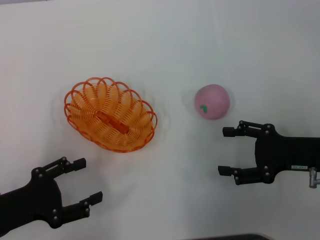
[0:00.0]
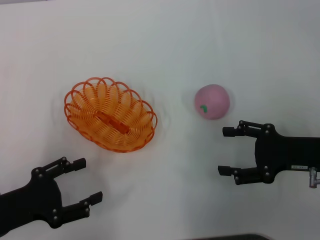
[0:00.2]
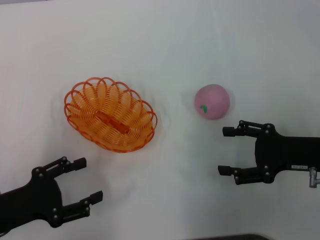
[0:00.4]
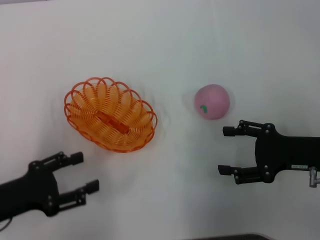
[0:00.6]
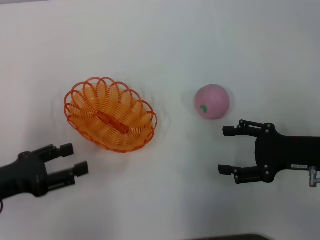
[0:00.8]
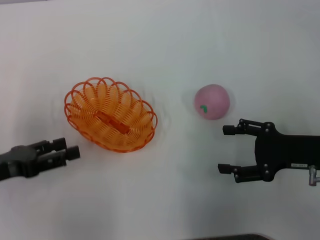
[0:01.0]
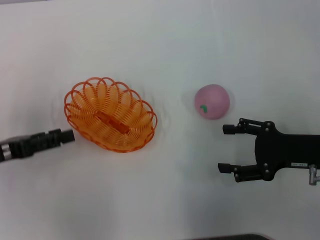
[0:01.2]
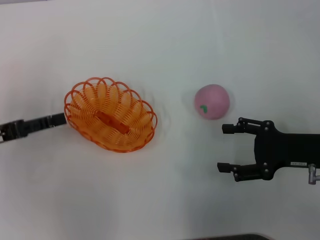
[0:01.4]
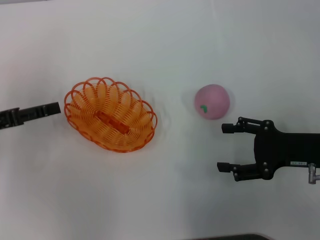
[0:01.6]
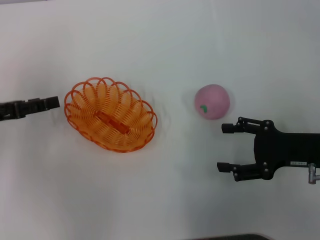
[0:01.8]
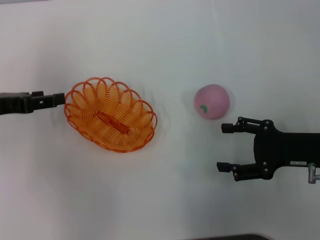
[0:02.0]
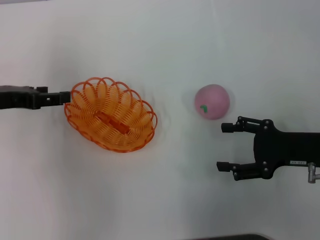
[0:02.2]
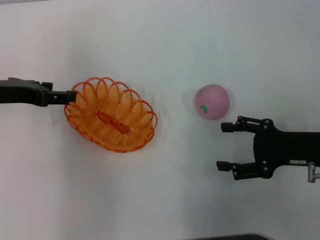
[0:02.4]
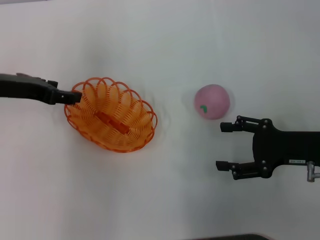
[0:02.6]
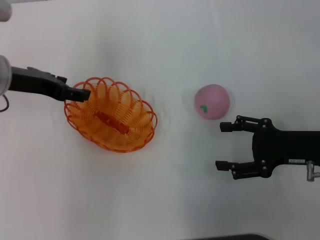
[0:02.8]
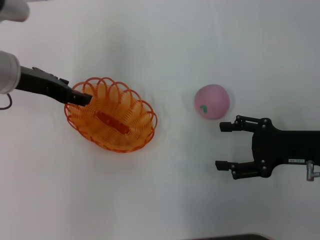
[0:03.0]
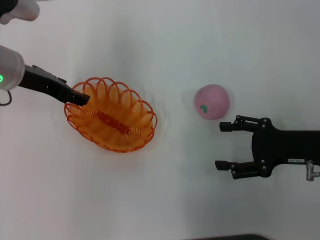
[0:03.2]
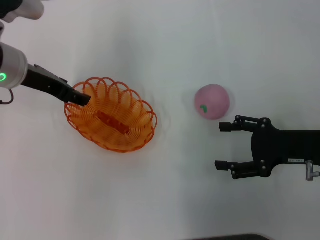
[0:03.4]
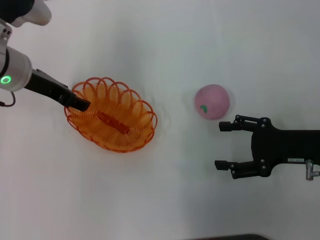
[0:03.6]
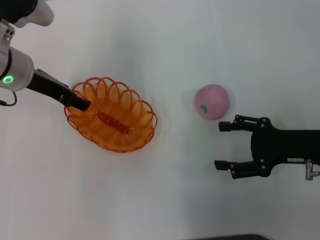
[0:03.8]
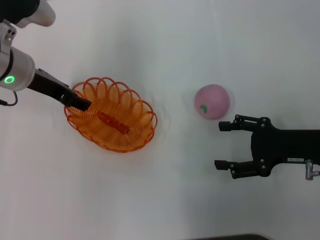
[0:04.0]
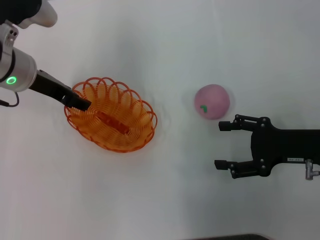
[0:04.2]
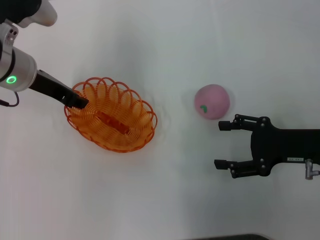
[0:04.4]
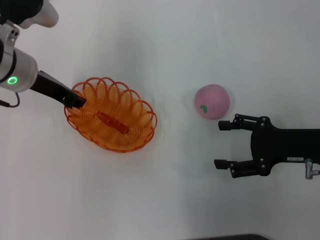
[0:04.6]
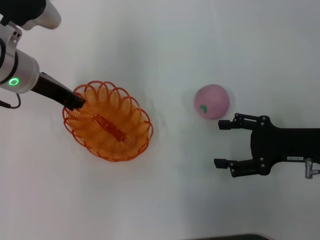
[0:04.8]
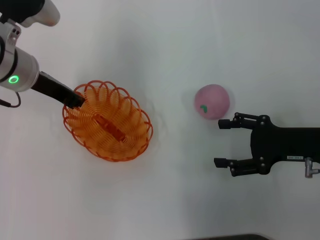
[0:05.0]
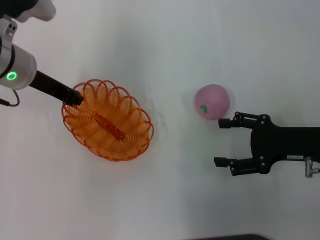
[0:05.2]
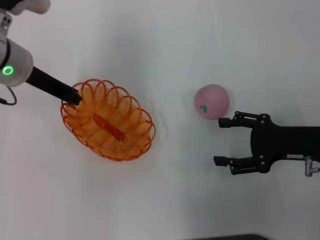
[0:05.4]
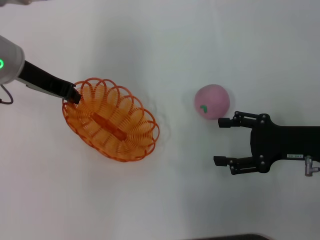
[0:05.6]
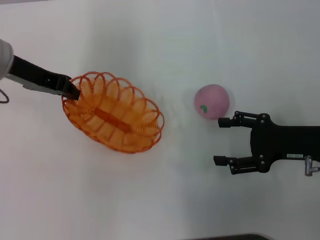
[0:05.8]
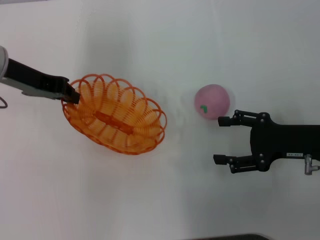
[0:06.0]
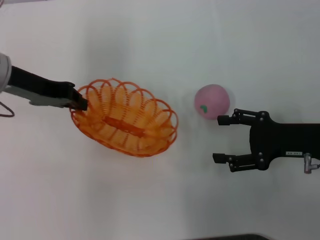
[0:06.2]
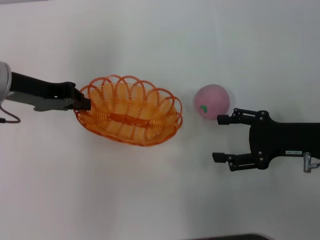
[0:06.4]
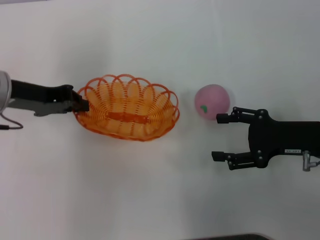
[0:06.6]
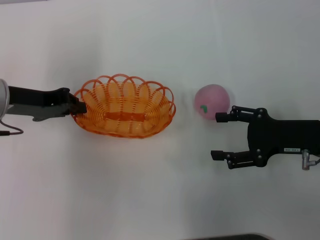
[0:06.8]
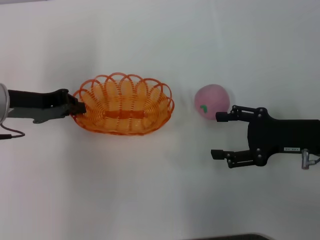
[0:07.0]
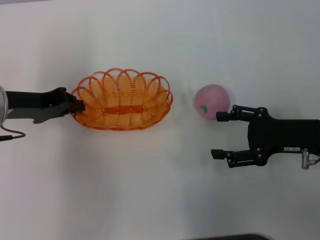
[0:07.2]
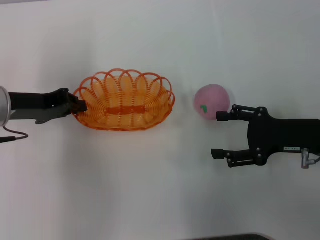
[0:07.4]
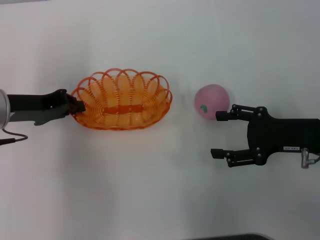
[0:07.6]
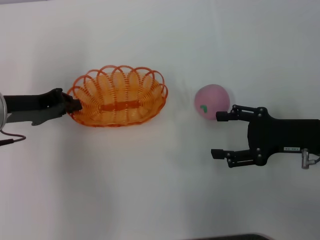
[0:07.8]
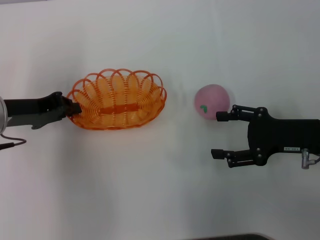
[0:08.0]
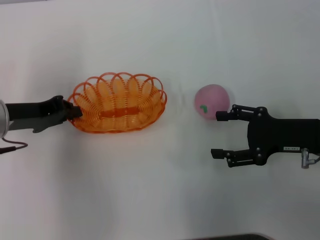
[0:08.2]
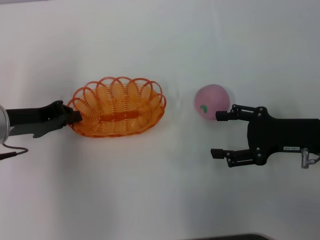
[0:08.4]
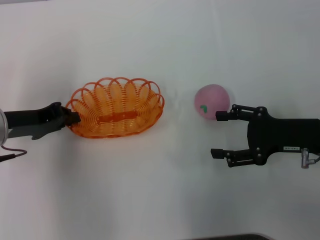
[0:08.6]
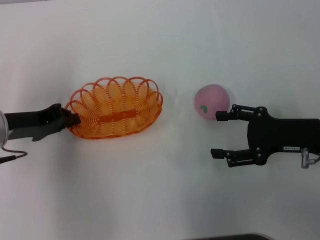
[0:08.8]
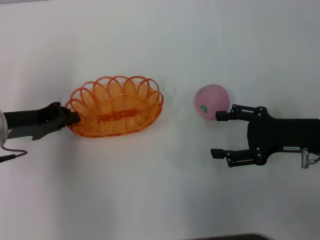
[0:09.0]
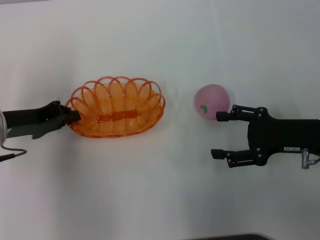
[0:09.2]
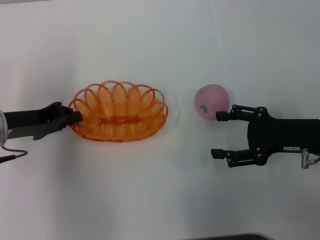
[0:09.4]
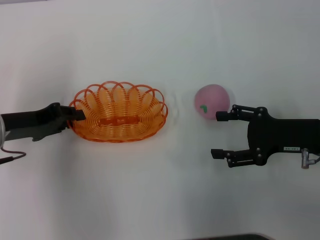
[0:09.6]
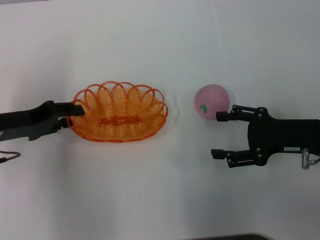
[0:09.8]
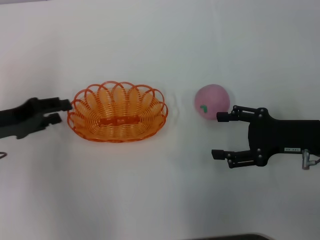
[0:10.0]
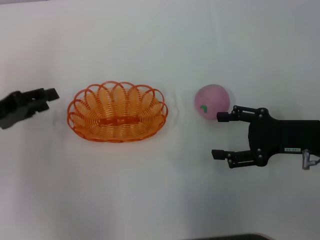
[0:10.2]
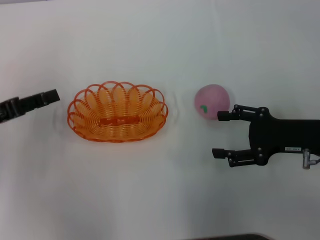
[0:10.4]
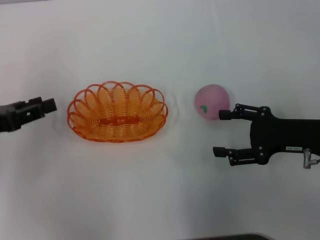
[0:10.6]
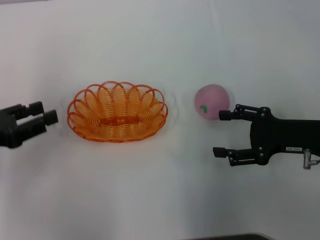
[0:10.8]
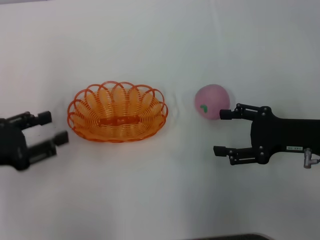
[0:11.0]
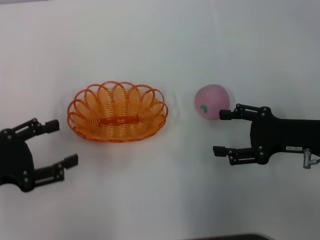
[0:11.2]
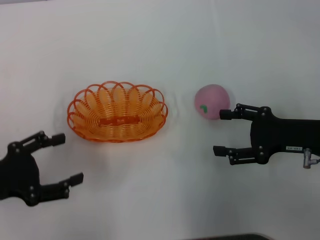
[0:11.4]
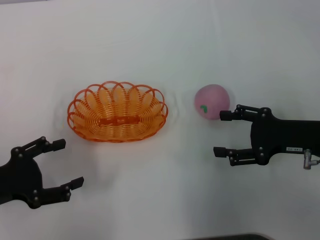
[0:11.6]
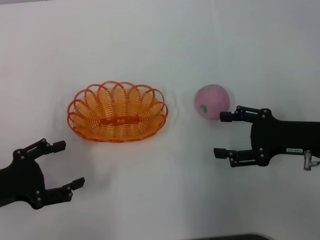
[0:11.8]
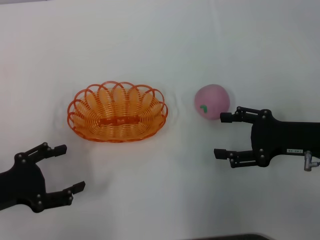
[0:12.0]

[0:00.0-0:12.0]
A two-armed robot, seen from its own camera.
Step, 0:00.0 to 0:06.2: Pick up the basket with the left gripper.
Step, 0:06.4 to 0:10.0: Place the basket in the center of view with the left gripper.
0:00.0 to 0:01.6: The left gripper is displaced forward and upward by approximately 10 cm.
0:01.6 to 0:03.0: The left gripper heads to the right and forward, covering about 15 cm.
0:03.0 to 0:04.4: The grippers make only small movements.
0:04.4 to 0:06.0: The left gripper closes up.
0:06.0 to 0:07.6: The left gripper is displaced downward by roughly 5 cm.
0:07.6 to 0:09.0: The grippers move only a little.
0:09.0 to 0:10.4: The left gripper shifts some 5 cm to the left, and opens up.
0:10.4 to 0:12.0: The left gripper heads backward and downward, covering about 10 cm, and opens up.

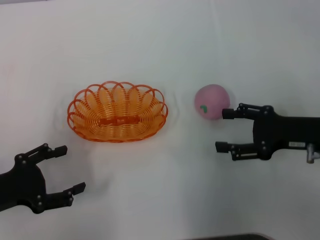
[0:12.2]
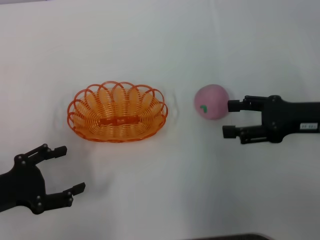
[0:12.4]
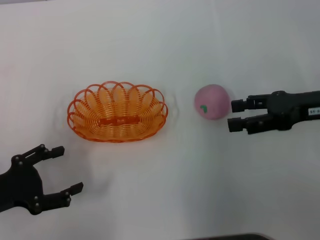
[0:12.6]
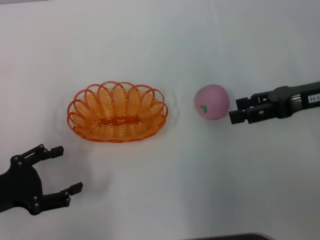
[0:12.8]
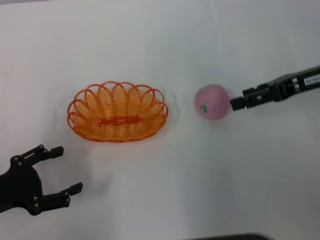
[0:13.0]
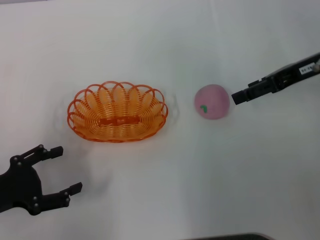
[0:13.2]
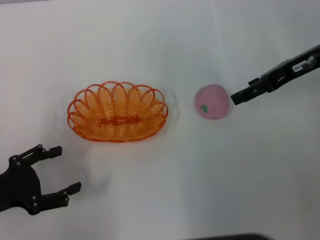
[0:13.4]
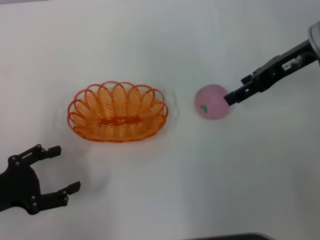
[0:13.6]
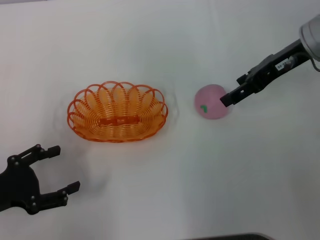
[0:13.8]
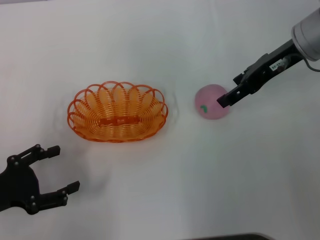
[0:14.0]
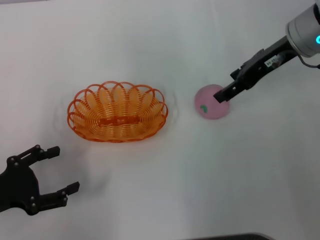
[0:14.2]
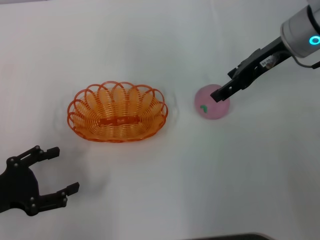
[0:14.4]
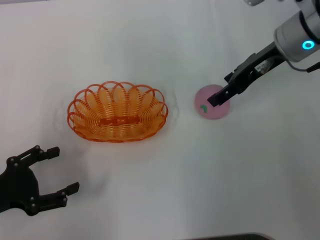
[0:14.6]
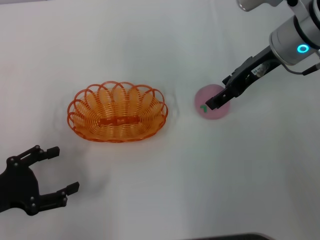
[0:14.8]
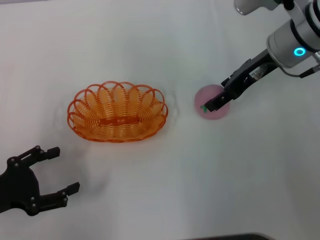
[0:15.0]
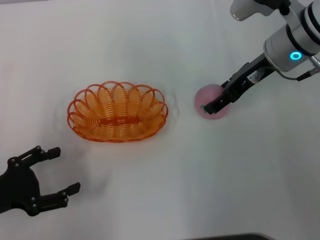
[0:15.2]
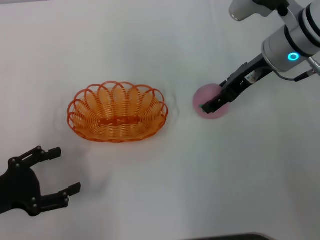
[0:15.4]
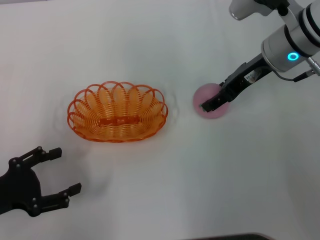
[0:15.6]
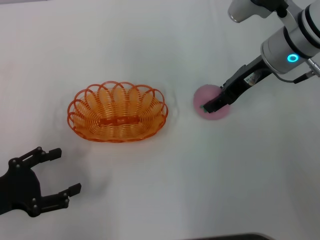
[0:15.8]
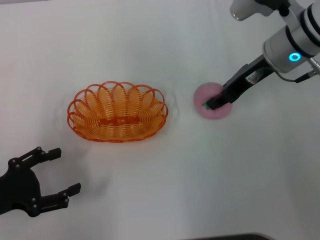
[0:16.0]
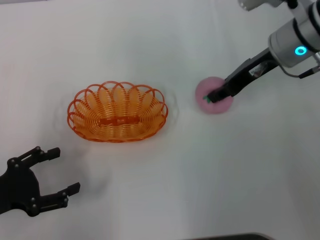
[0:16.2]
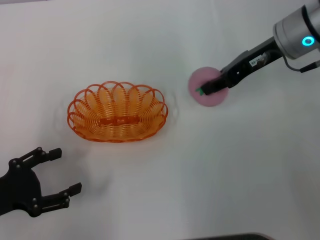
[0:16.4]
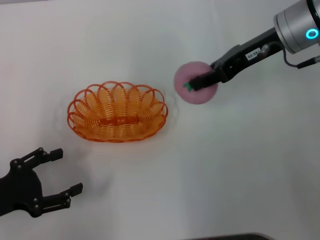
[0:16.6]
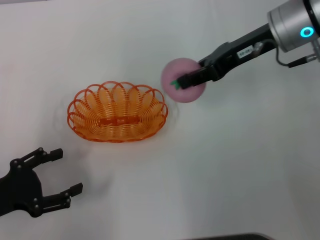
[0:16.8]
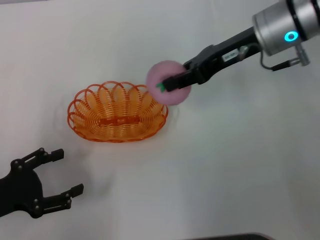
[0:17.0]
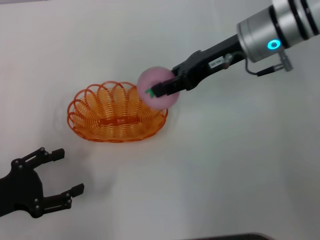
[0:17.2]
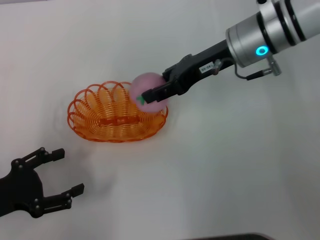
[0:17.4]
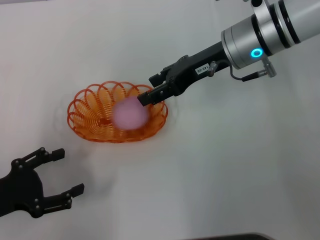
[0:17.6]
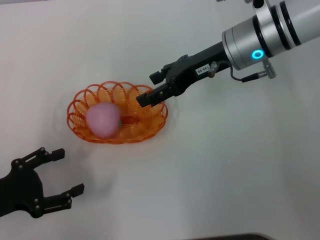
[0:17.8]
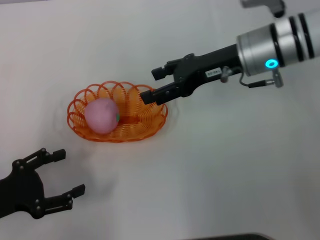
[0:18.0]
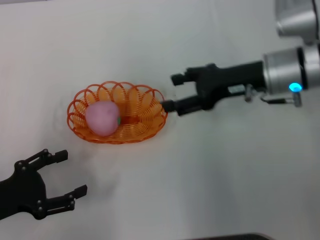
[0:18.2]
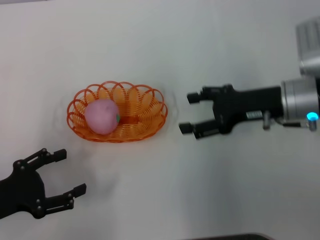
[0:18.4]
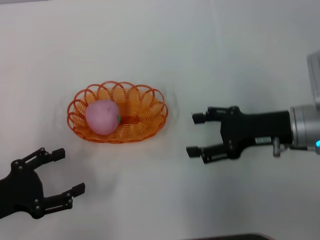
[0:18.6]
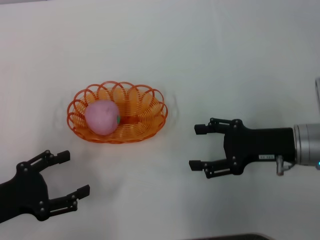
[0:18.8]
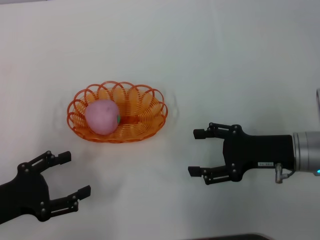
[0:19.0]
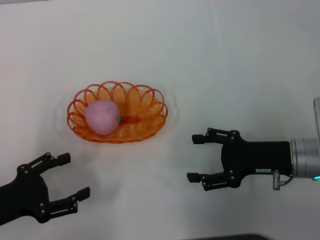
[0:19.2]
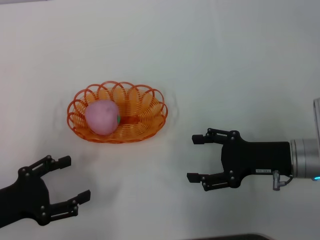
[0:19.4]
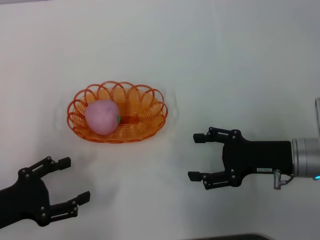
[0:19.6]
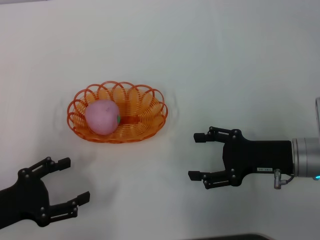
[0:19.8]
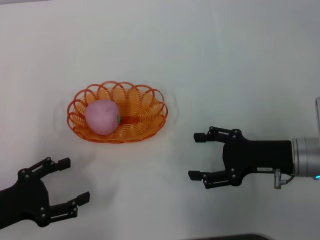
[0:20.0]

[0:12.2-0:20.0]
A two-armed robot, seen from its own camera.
Step, 0:12.2 to 0:16.4: Pick up the peach with the right gripper.
Step, 0:16.8 to 0:17.8: Place the peach into the basket with the right gripper.
0:12.2 to 0:13.8: The right gripper shifts approximately 15 cm forward and upward.
0:13.8 to 0:15.4: The right gripper ends up some 5 cm from where it was.
0:15.4 to 0:16.8: The right gripper closes up.
0:16.8 to 0:18.4: The right gripper moves downward and backward, some 10 cm, and opens its fingers.
0:18.4 to 0:20.0: The right gripper goes roughly 10 cm backward and downward.
